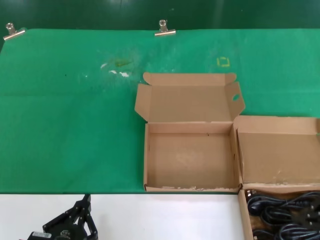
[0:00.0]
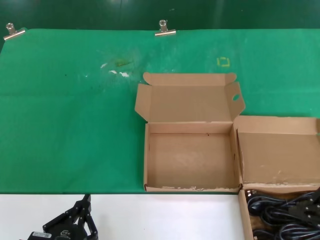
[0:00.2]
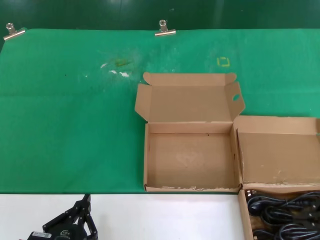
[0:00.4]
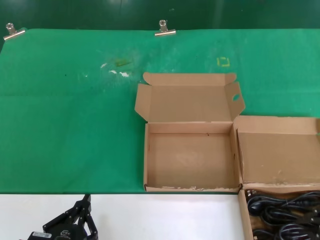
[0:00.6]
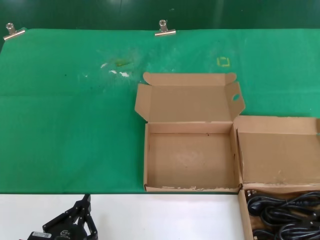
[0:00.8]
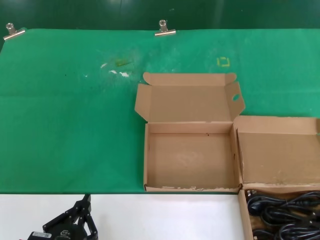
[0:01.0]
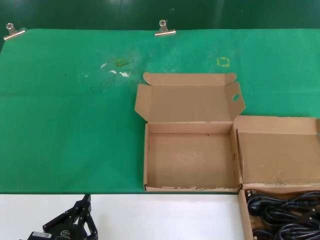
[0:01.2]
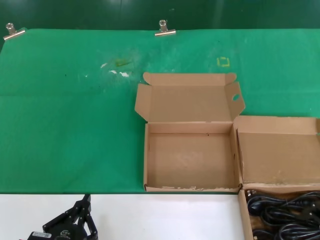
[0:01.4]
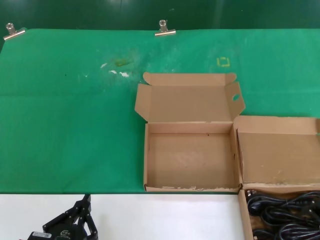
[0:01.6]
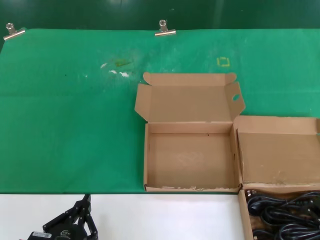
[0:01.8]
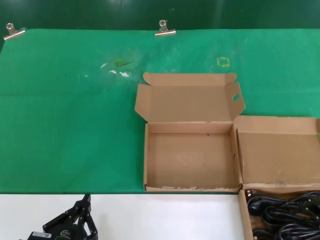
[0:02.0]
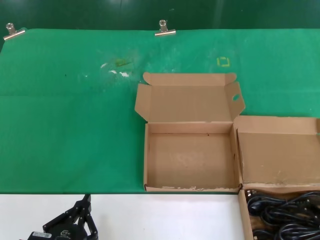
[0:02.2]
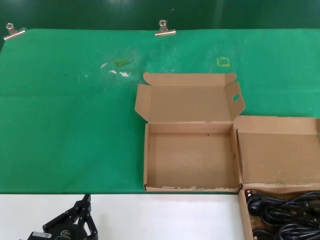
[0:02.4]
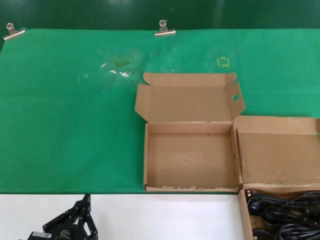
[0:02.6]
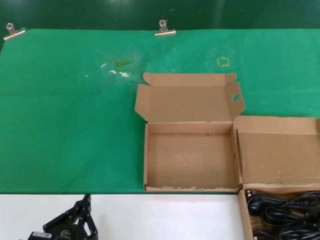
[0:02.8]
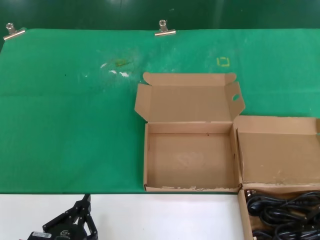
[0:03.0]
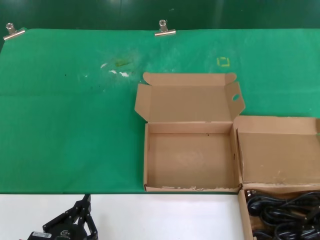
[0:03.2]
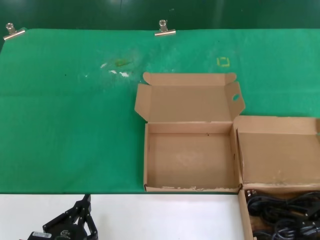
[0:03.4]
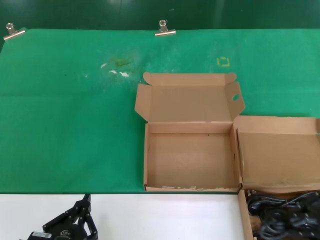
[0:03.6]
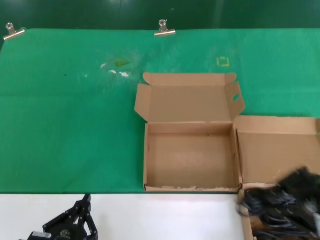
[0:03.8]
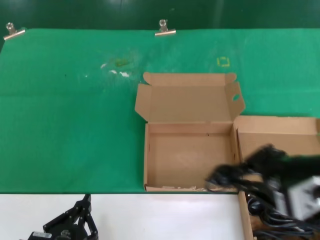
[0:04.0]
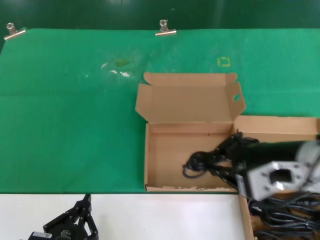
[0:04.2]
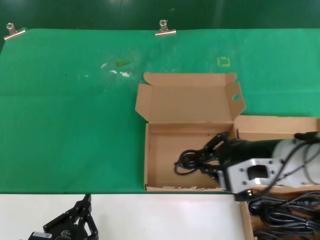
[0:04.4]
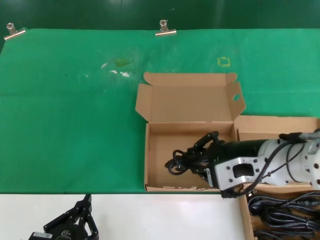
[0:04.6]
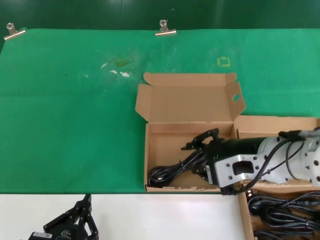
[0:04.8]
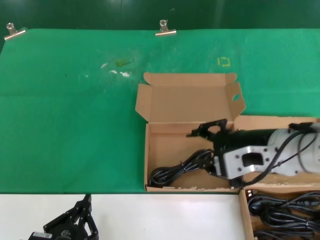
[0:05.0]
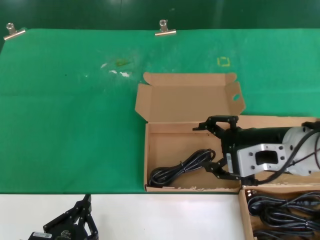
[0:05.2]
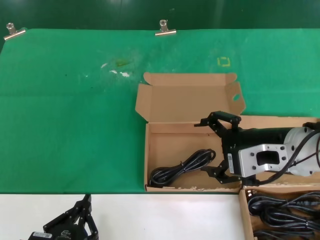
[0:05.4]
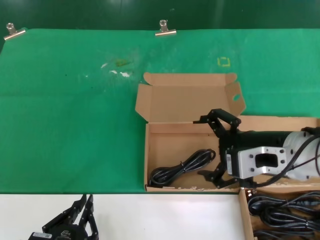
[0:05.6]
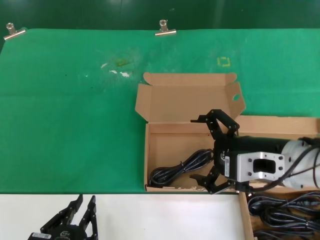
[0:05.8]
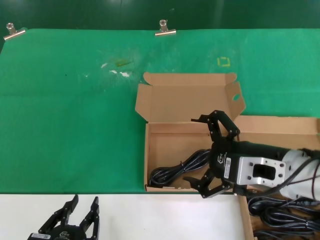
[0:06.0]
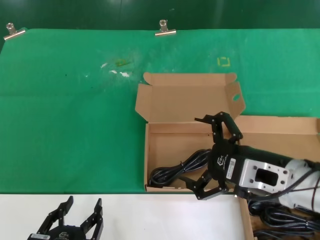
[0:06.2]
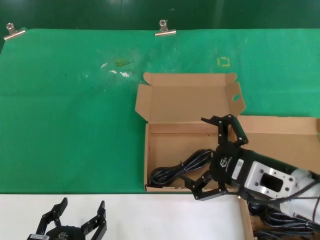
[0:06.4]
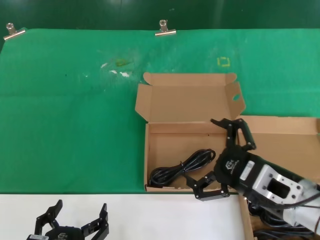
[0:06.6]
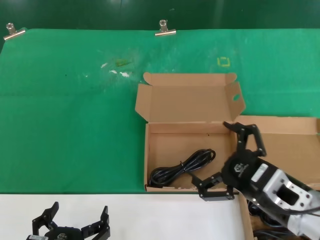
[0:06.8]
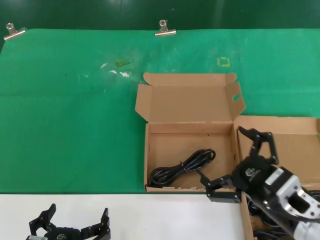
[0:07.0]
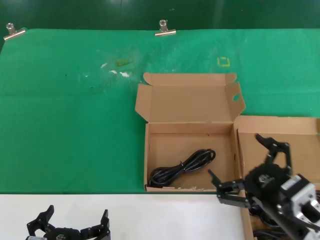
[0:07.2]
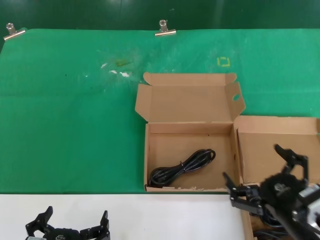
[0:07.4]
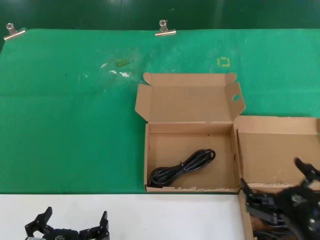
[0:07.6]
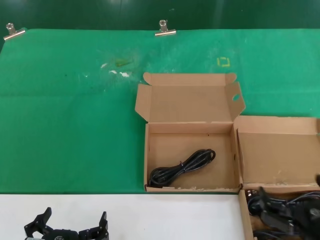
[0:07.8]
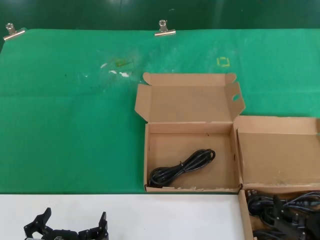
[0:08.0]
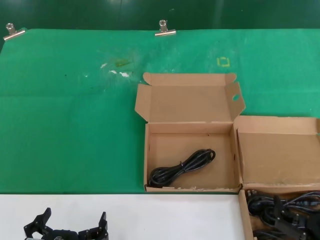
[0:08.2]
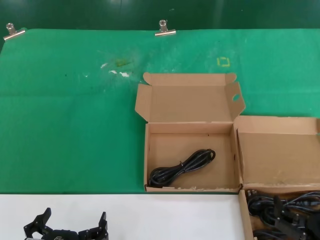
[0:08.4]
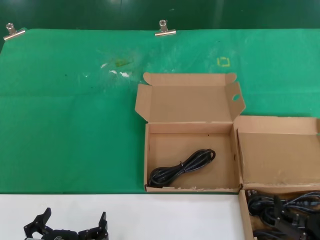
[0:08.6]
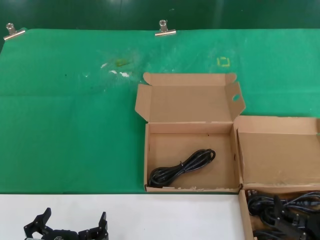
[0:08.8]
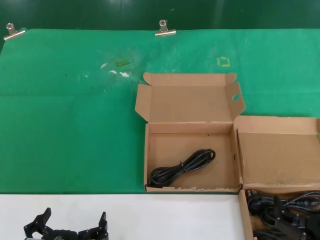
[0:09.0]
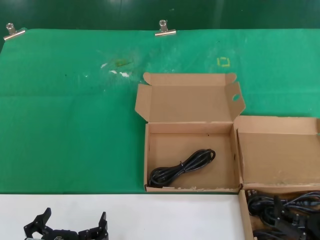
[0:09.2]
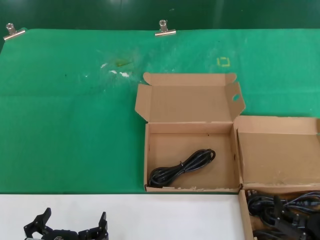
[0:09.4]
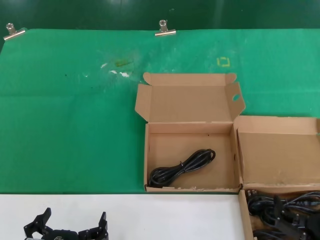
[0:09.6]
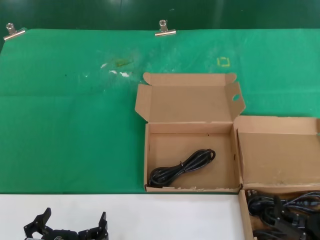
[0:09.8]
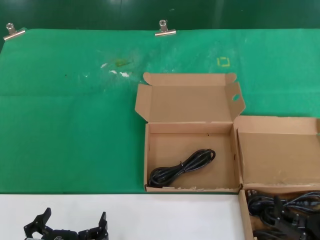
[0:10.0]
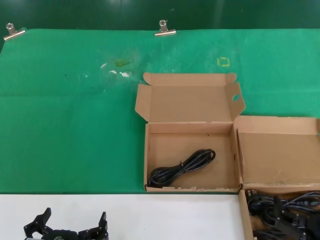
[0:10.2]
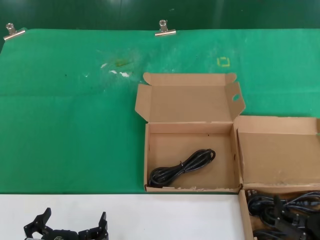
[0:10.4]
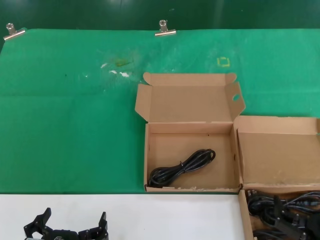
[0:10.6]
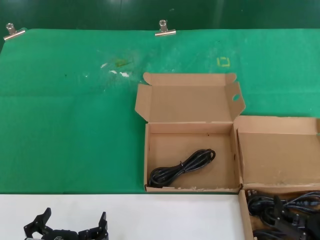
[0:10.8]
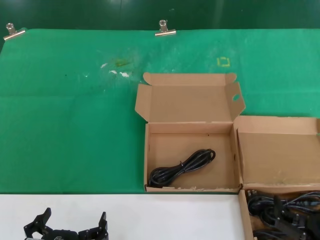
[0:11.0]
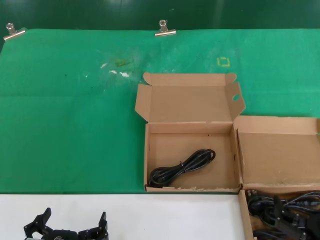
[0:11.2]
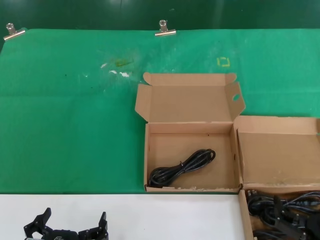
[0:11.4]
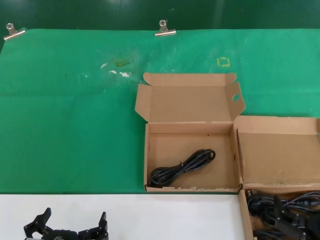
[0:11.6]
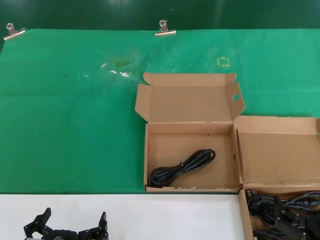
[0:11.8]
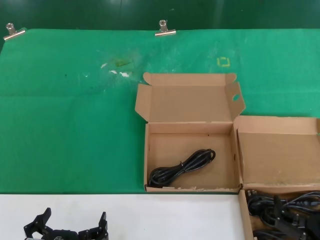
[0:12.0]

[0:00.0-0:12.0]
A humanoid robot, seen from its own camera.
Task of the whole recording: take the parts from the box containing them and put them into an empty box.
Step, 0:03.2 to 0:04.6: Place the data cable in the another box.
0:03.0 to 0:04.4: The right hand shifts about 15 cm to the left and upward.
0:06.0 to 0:07.6: The right hand heads downward and backward, covering roughly 20 cm.
0:07.6 to 0:09.0: The right hand changes place by about 5 cm.
0:09.0 to 0:12.0: Both hands stay about where they are.

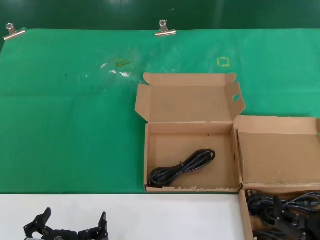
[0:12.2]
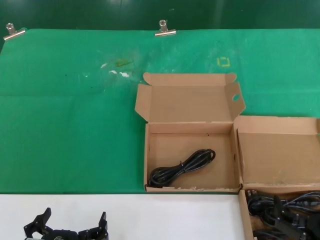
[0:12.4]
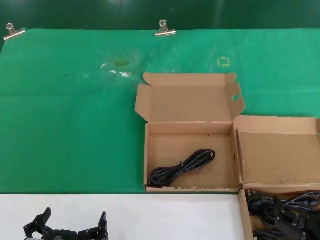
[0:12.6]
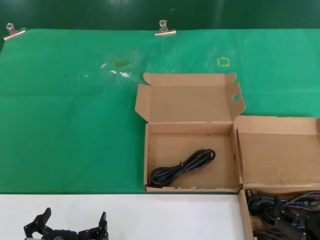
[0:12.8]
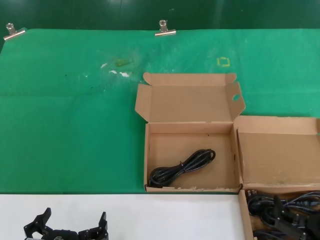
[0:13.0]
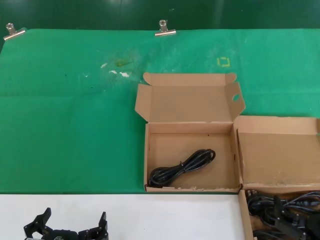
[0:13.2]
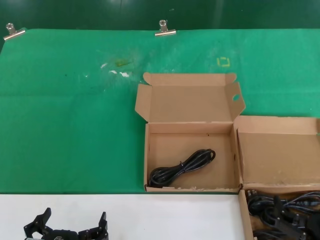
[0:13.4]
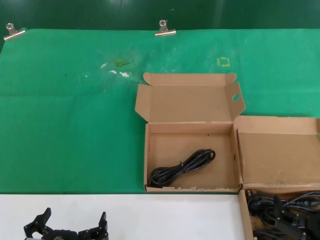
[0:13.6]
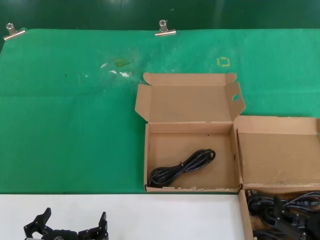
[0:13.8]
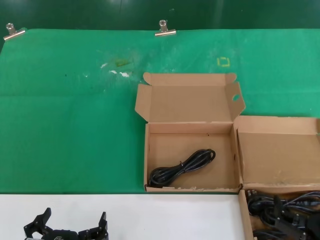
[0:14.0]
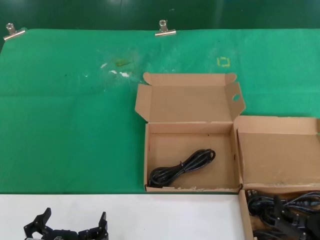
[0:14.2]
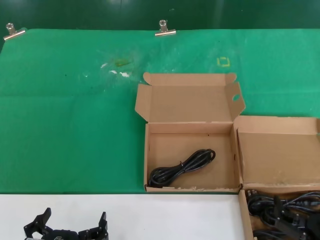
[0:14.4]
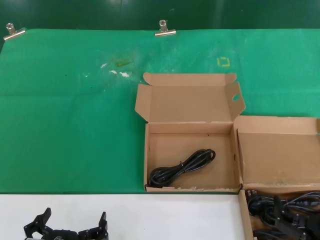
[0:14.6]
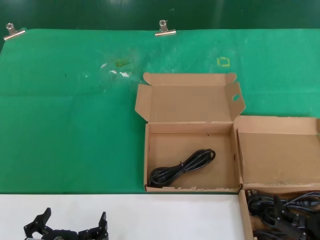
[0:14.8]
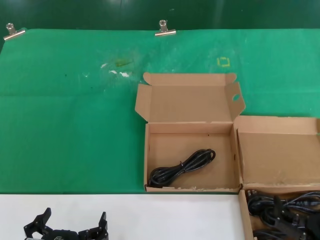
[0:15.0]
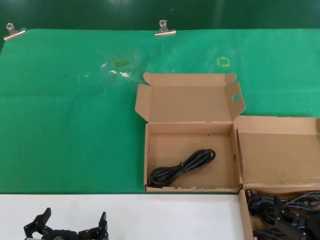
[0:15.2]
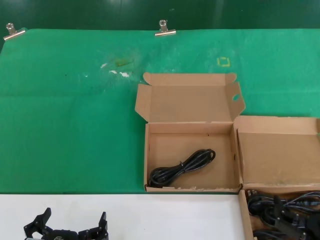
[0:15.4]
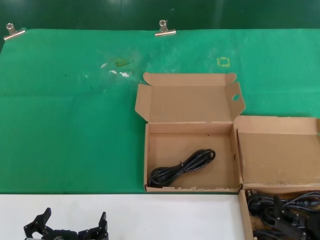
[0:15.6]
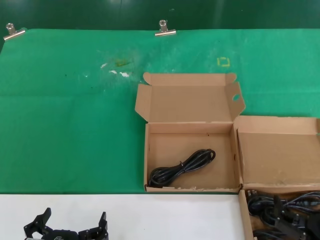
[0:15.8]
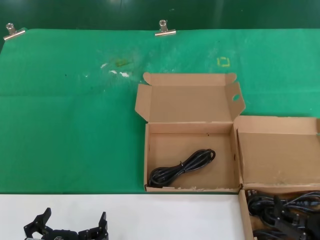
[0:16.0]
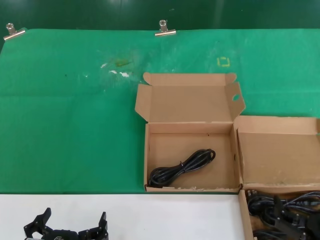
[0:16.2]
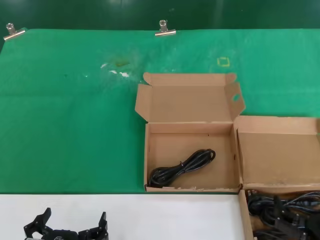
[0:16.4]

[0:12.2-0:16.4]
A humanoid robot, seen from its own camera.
Task of the whole recording: take the parts from the box containing them and put them into an empty box.
0:12.2 to 0:16.4: The two hands keep their place.

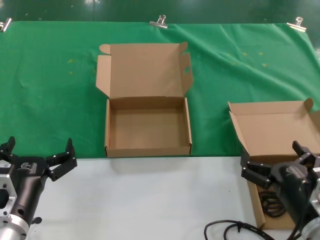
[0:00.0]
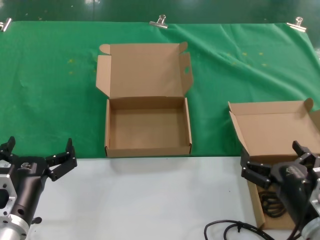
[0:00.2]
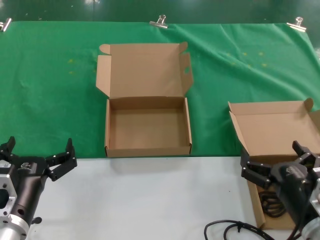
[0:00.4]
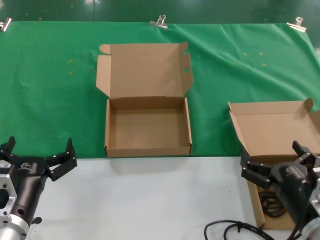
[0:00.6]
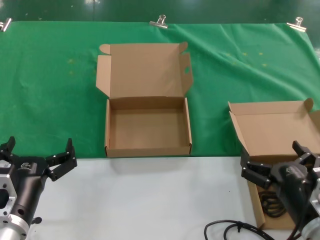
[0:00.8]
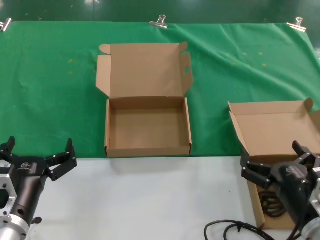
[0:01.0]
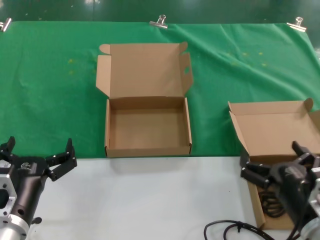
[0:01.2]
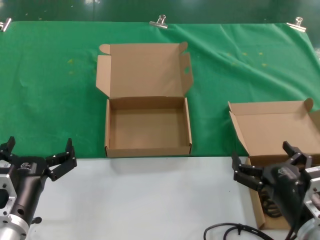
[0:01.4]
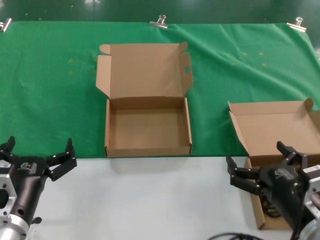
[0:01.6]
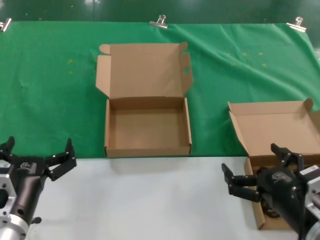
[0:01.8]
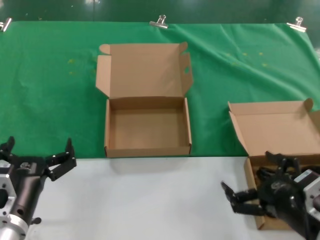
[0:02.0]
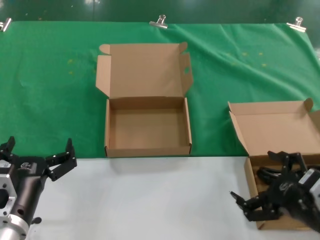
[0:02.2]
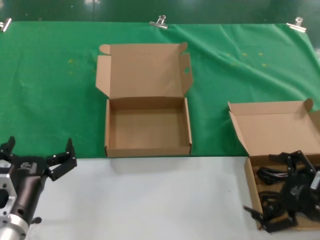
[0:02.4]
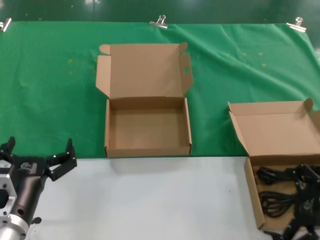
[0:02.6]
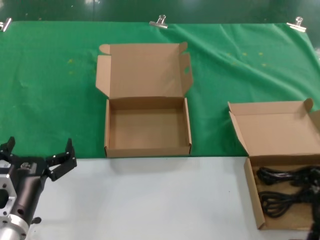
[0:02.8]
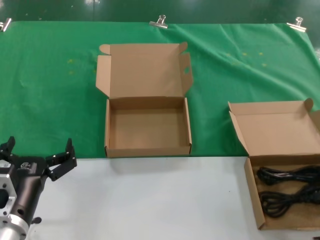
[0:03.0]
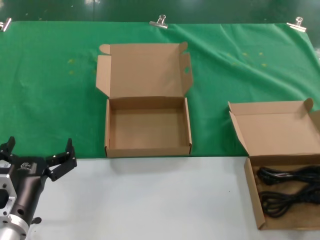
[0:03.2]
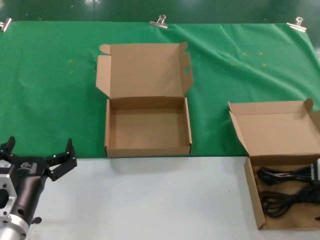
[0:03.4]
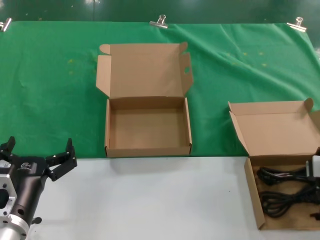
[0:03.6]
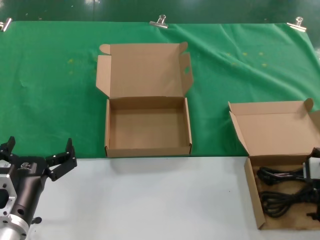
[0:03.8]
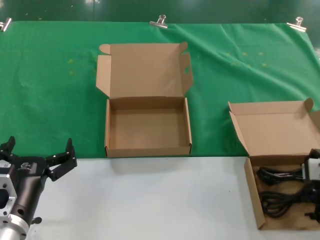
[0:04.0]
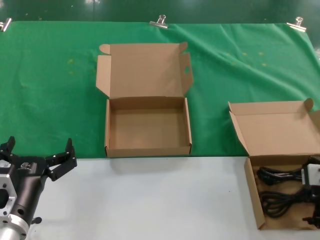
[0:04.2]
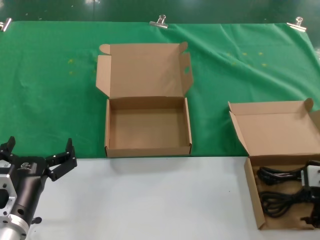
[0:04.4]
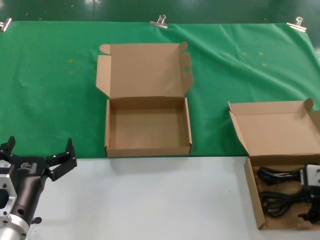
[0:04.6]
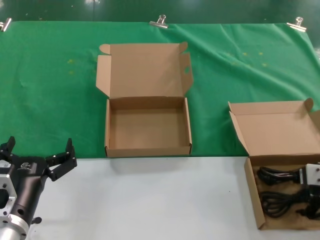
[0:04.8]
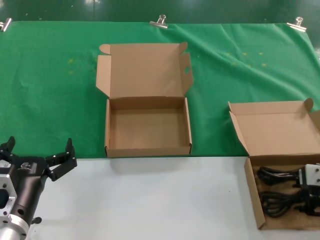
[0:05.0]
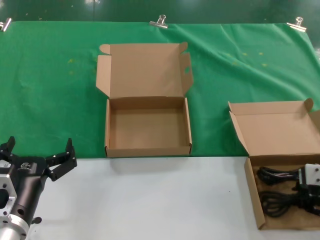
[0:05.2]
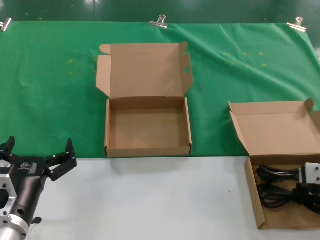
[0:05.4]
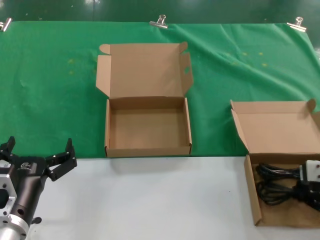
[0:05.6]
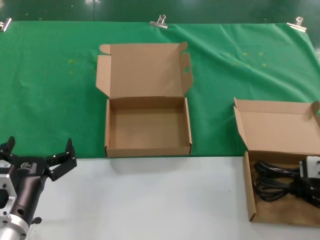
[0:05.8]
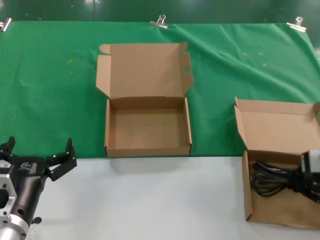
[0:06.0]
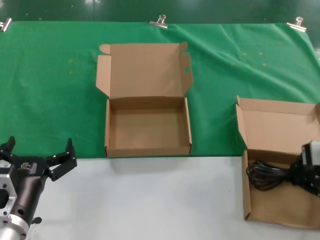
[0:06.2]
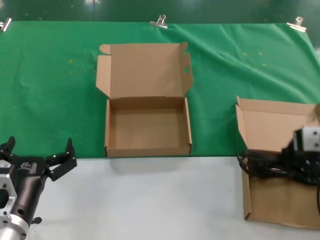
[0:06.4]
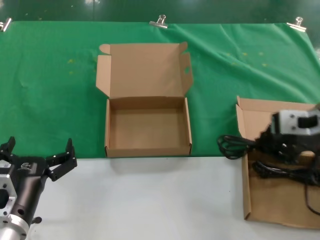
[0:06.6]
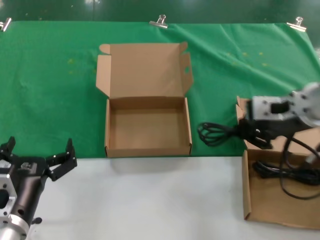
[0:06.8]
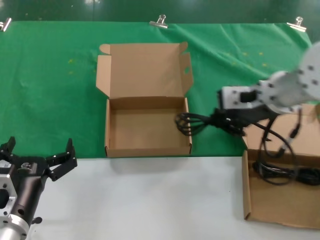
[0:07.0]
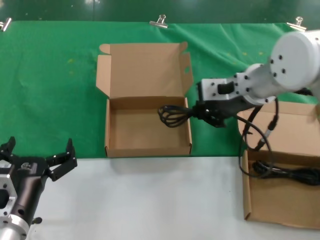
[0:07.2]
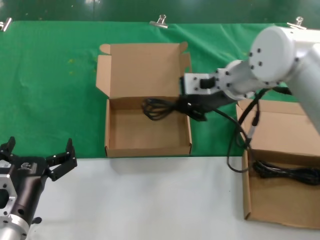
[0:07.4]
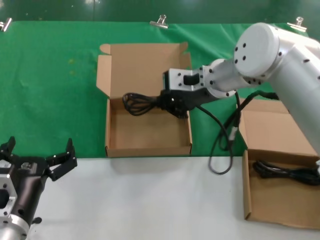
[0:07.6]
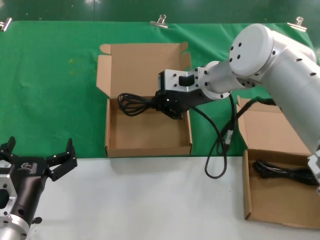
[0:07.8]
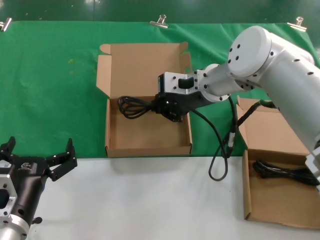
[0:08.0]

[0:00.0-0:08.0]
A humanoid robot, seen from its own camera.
Task of the whole recording: take the parts from the box containing them and put them into an empty box.
Step, 0:00.0 to 0:05.0: Grasp the data cable.
0:00.0 to 0:01.6: The hands make only small movements.
0:01.6 to 0:03.2: The right hand travels upward, to the right and forward by approximately 20 cm.
0:03.2 to 0:04.8: The hands stay close to where they were, moving slightly.
0:04.8 to 0:06.4: The right hand shifts roughly 10 cm upward.
0:06.4 to 0:08.0: The right hand heads to the left and forward, covering about 25 cm.
